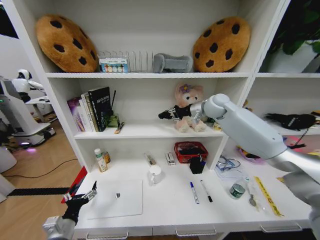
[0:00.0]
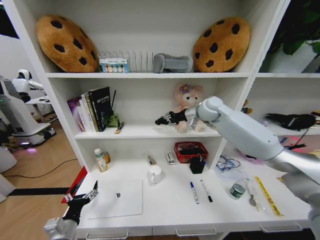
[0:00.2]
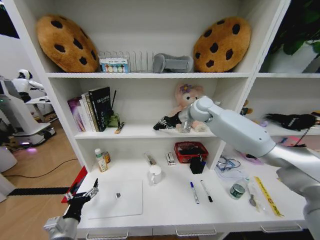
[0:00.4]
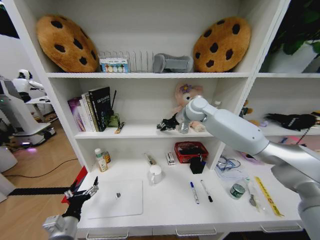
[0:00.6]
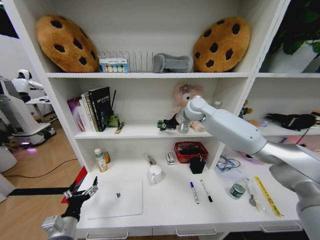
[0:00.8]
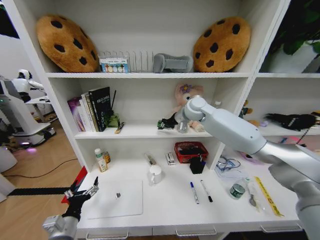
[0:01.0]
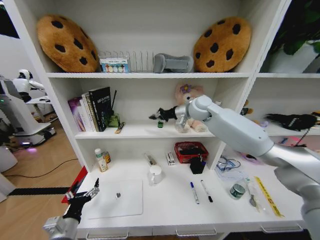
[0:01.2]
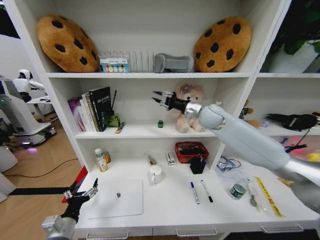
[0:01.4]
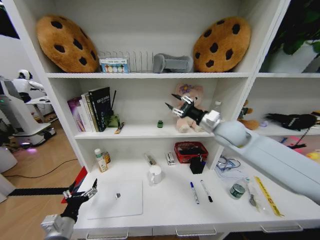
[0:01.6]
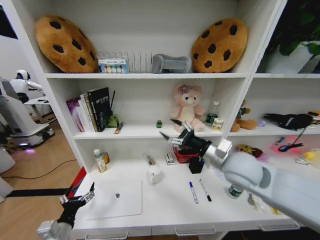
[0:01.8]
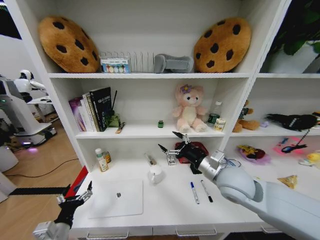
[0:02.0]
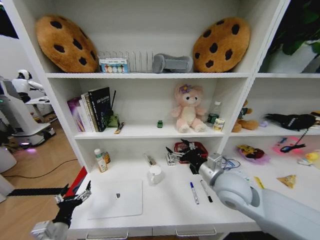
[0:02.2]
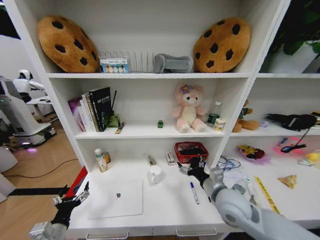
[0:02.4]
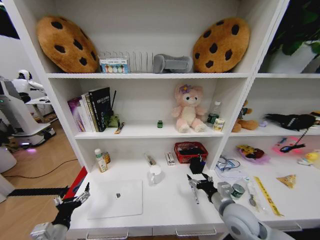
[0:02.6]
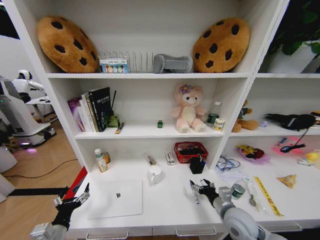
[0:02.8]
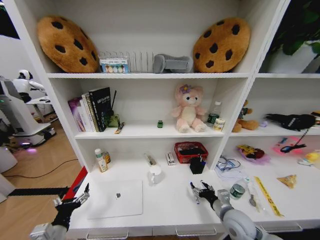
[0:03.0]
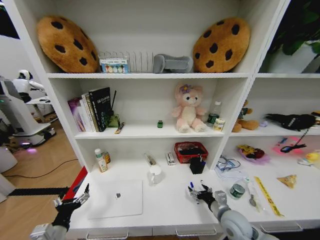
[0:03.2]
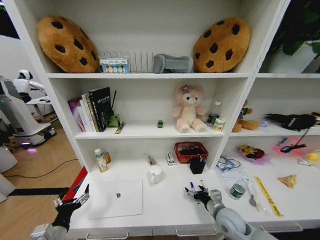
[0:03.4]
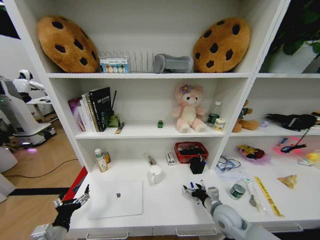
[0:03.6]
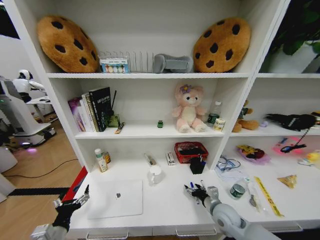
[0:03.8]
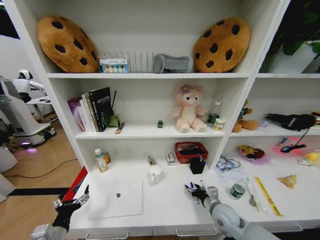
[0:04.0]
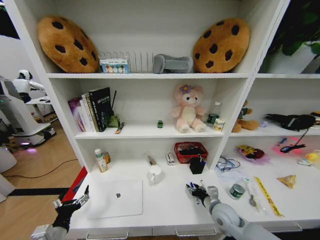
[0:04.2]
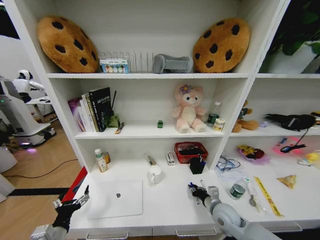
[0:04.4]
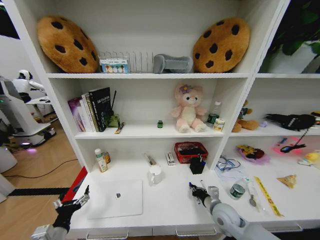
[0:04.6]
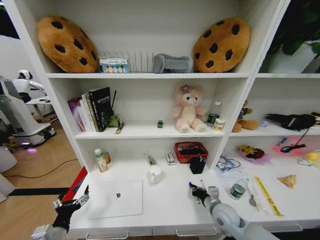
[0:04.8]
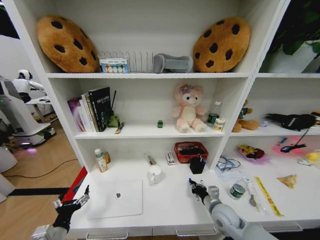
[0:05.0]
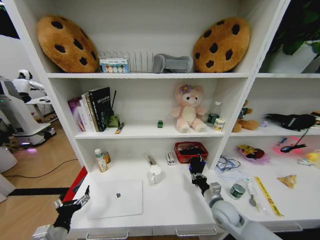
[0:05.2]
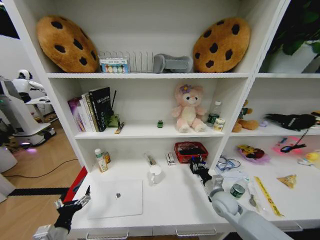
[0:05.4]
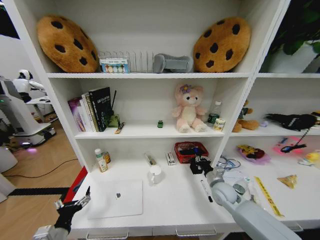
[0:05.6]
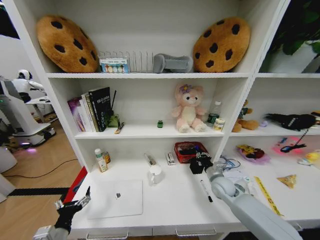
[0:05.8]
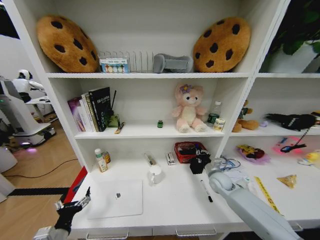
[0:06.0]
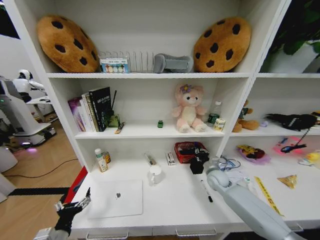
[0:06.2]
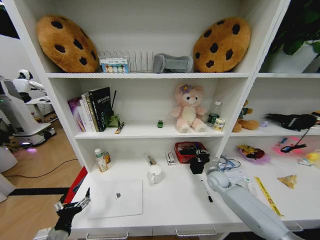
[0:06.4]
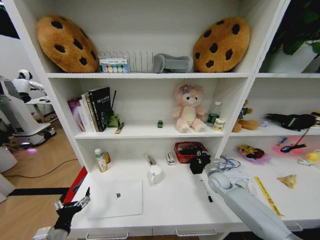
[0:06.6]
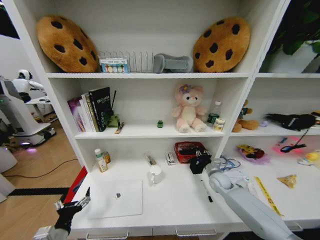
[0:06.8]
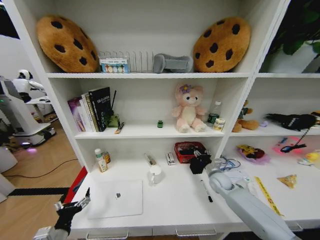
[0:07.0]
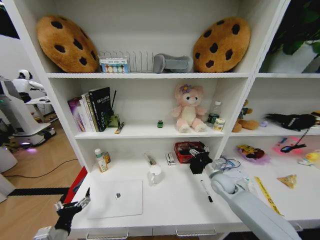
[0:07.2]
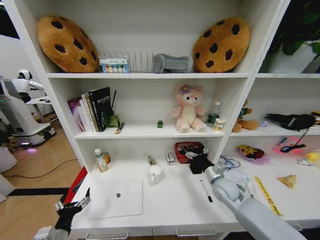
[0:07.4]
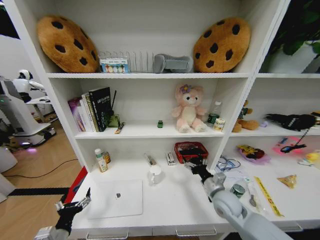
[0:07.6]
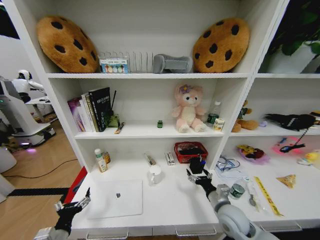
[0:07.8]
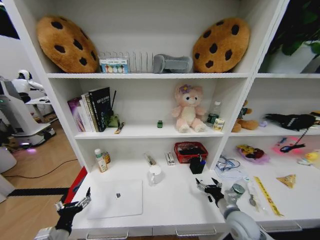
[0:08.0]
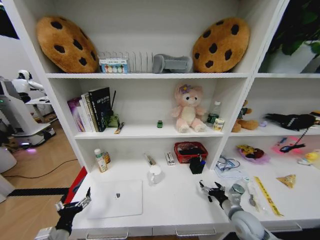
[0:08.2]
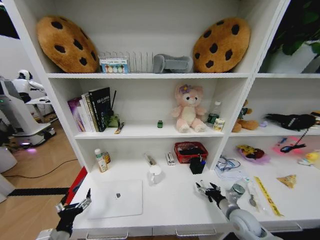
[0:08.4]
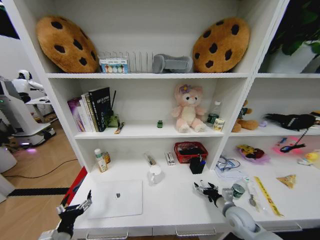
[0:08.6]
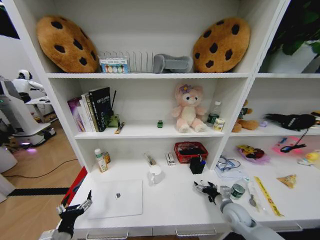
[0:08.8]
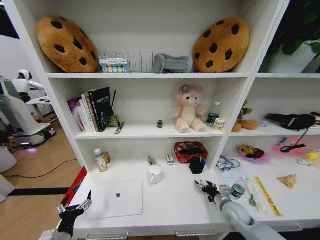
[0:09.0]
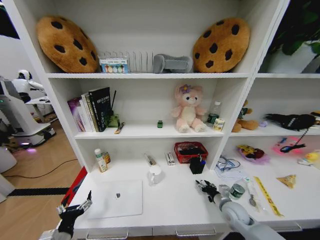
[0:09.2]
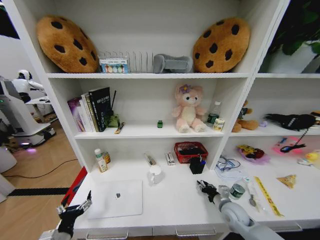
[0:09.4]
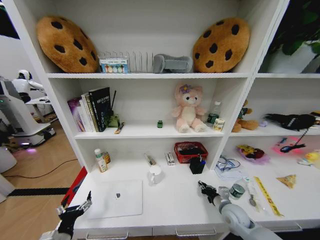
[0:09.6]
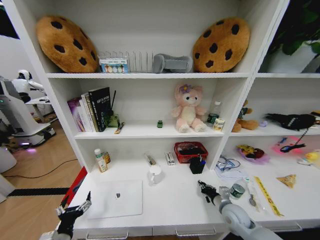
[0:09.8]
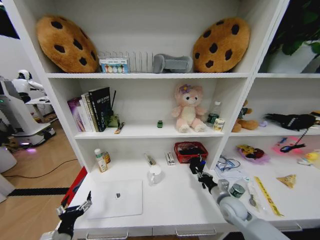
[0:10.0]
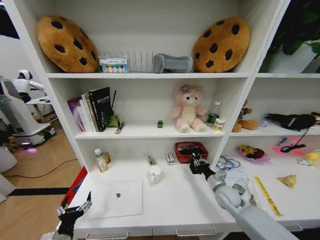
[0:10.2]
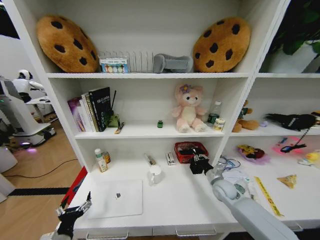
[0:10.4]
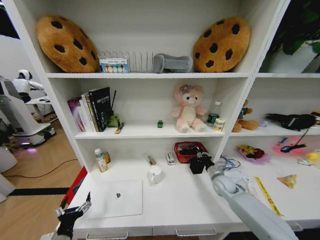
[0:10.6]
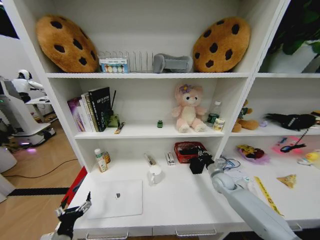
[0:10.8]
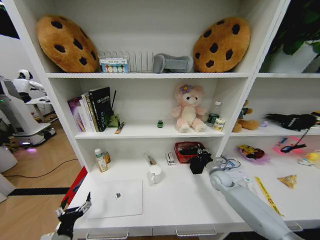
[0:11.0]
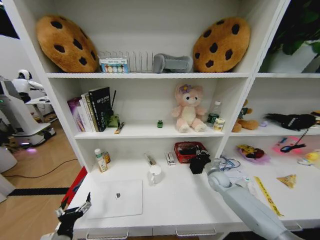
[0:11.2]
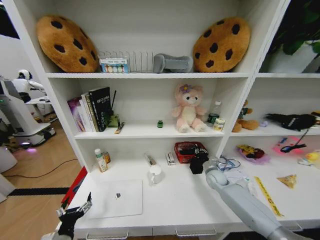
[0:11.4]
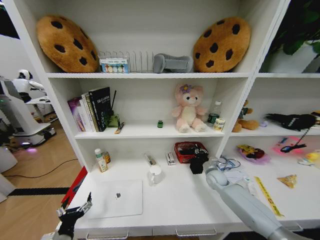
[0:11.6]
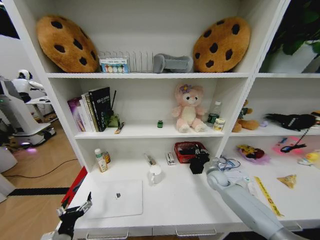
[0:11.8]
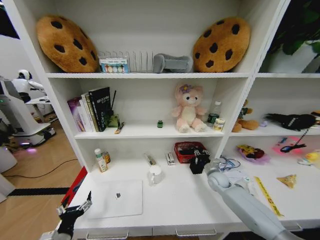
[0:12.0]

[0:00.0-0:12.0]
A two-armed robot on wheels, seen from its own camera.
Task of the whole recording: Organize the objects on the table.
0:00.0 to 0:01.6: The right gripper heads backward and downward, covering roughly 15 cm.
0:01.6 to 0:03.0: The right gripper travels downward and backward by about 35 cm.
0:03.0 to 0:04.4: The right gripper changes place by some 5 cm, and closes.
0:04.4 to 0:06.0: The right gripper travels forward by approximately 15 cm.
0:06.0 to 0:07.6: The right gripper ends up roughly 5 cm from where it was, and opens its fingers.
0:07.6 to 0:09.0: The right gripper shifts about 10 cm downward and backward.
0:09.0 to 0:10.4: The right gripper is displaced forward by approximately 10 cm, and closes.
0:10.4 to 0:12.0: The right gripper is displaced forward by some 5 cm.

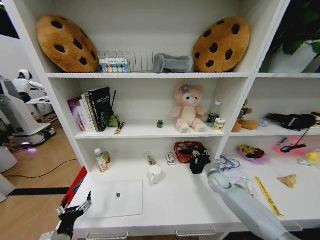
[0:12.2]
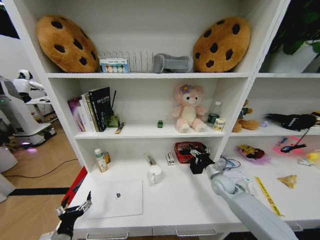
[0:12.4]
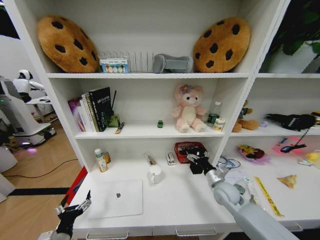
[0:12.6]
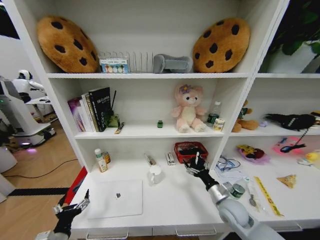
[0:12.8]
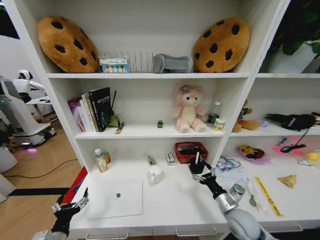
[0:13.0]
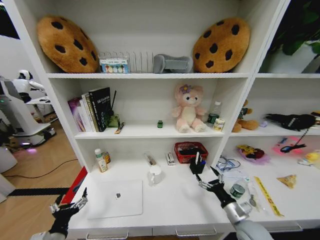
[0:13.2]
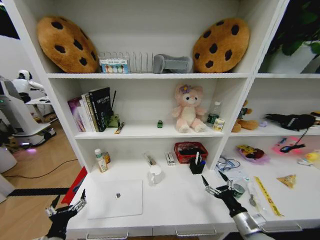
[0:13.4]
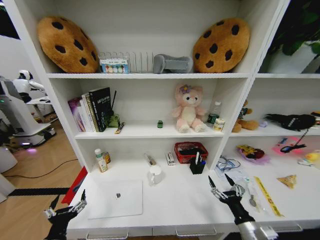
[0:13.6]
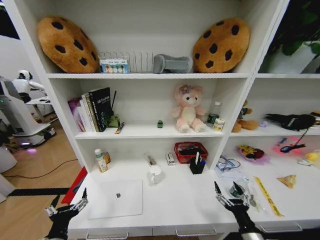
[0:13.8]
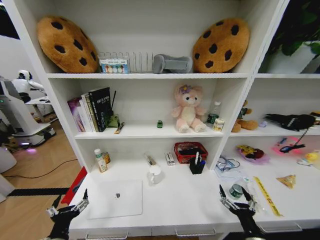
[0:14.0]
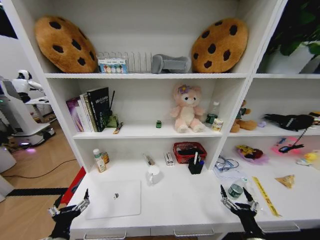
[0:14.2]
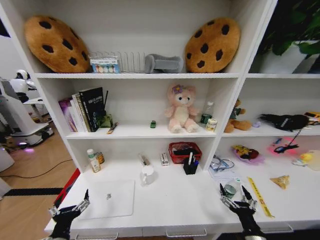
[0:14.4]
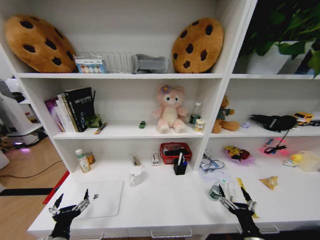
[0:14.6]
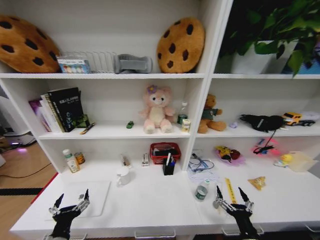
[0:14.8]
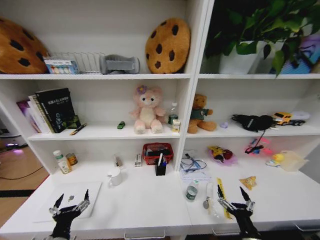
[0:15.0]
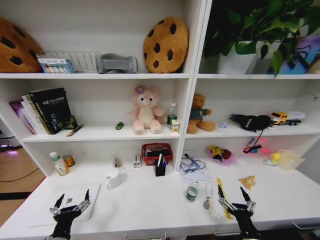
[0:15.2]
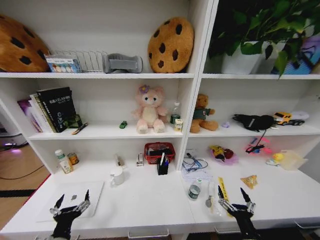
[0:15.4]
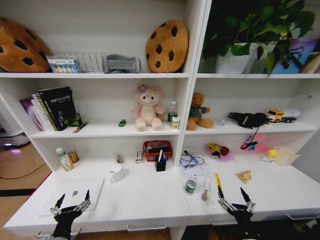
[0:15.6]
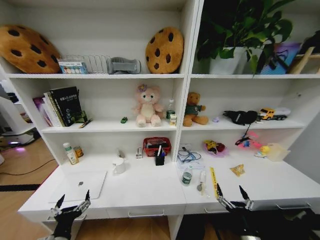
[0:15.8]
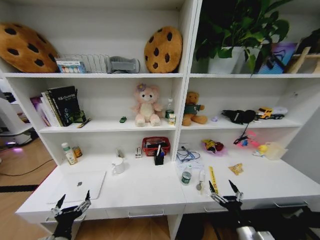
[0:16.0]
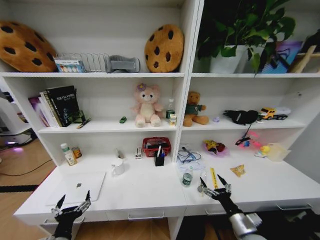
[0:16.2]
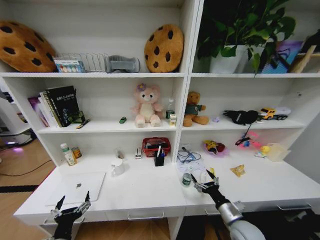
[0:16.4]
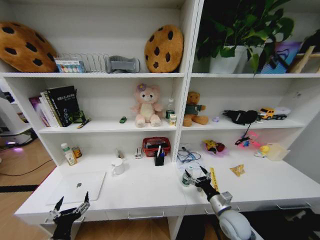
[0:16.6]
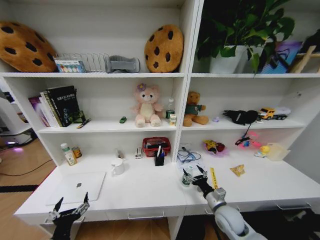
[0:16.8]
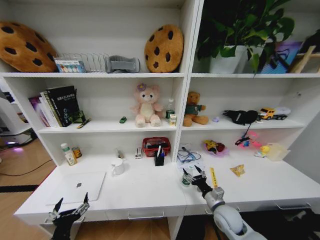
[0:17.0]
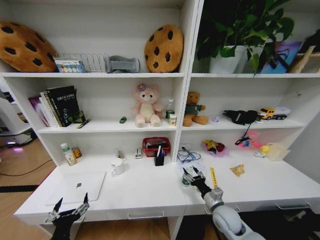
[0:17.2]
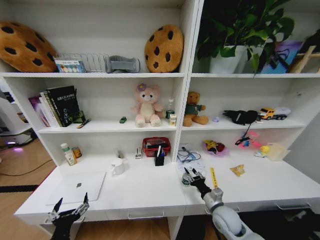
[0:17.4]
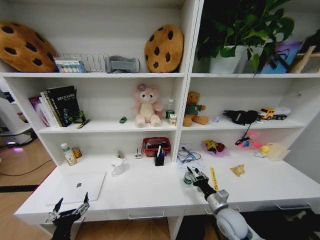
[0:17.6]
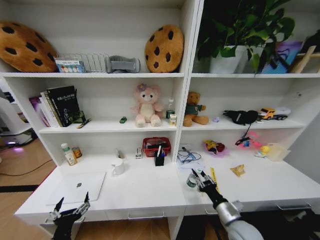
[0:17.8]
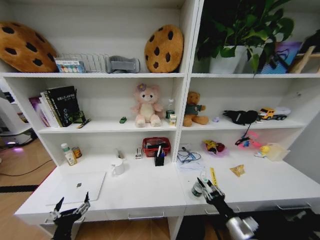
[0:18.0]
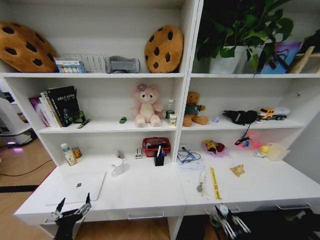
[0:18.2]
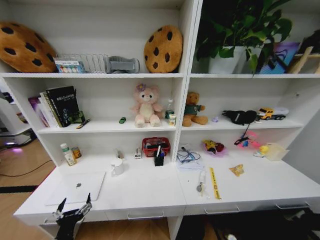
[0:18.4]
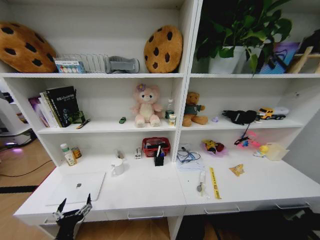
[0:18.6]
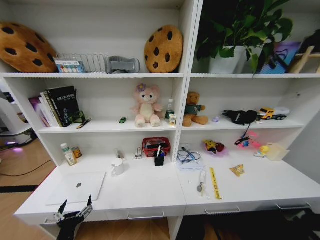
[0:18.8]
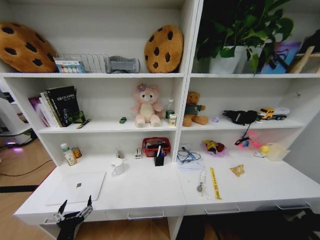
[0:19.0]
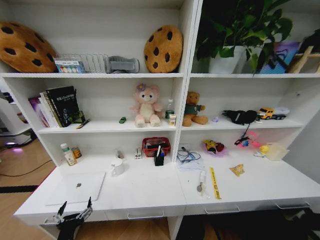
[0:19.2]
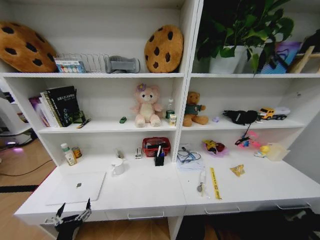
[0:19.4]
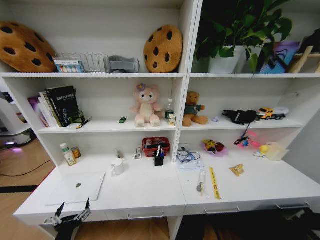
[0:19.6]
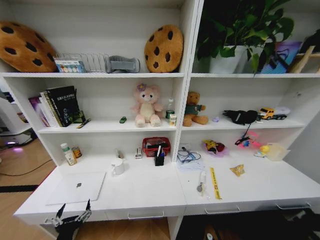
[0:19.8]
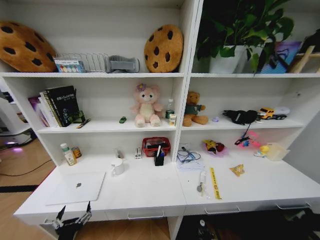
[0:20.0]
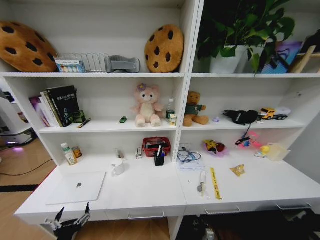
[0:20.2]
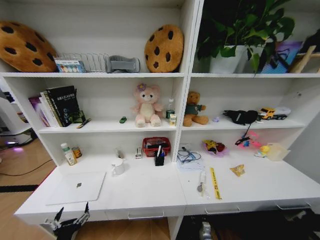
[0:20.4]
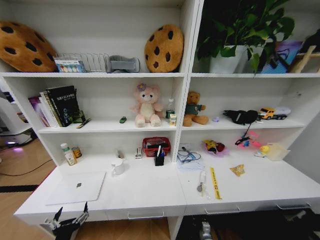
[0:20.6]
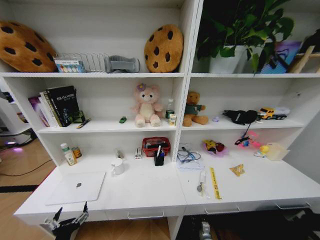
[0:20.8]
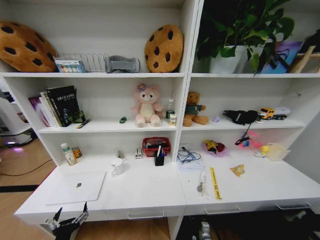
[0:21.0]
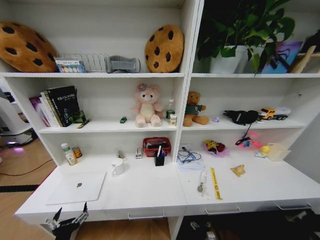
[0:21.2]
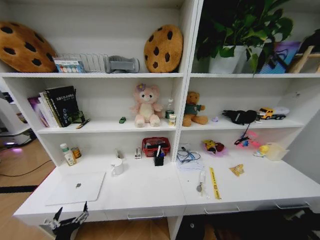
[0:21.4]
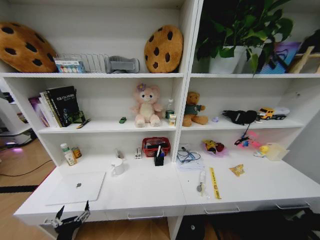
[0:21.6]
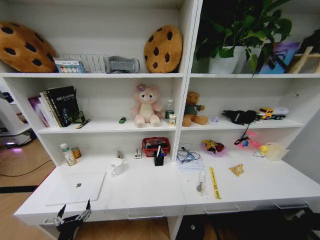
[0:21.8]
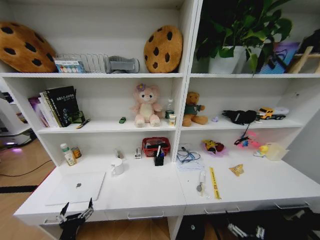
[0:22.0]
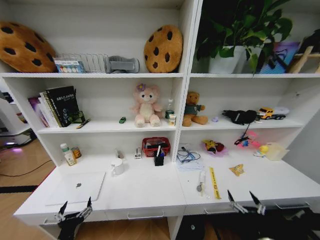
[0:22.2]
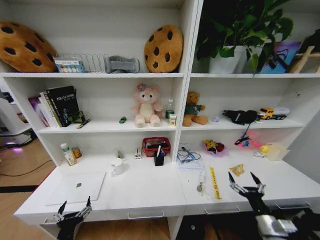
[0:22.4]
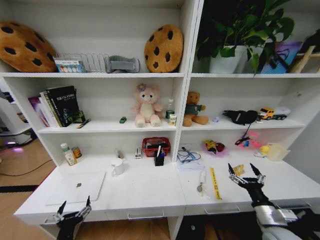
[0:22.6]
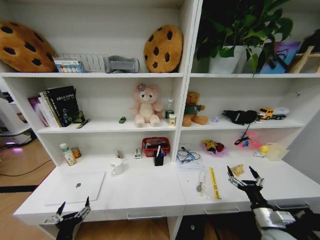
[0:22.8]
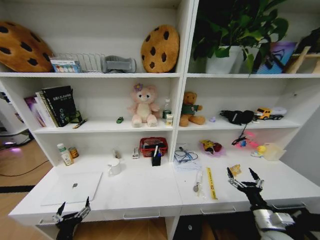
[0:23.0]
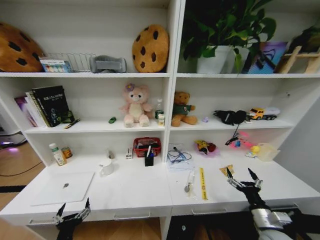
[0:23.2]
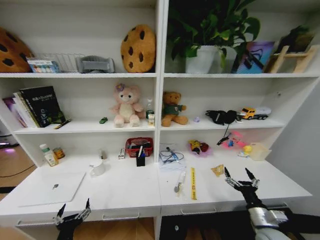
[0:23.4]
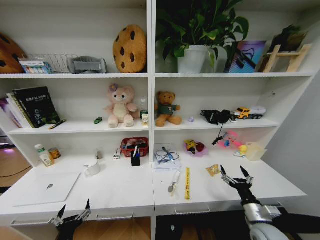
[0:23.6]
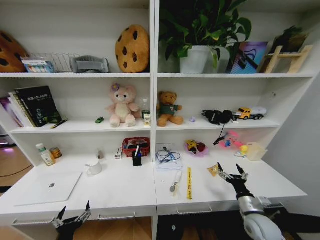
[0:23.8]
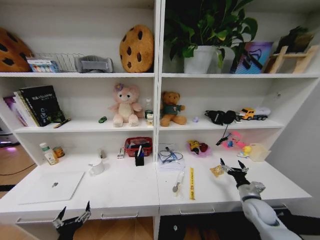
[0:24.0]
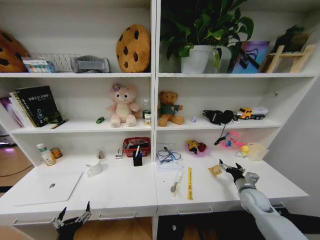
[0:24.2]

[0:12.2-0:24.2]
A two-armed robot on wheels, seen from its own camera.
Task of the whole recording: Organize the objects on the table.
0:12.2 to 0:13.8: The left gripper changes place by approximately 5 cm; the right gripper moves backward, about 30 cm.
0:15.2 to 0:16.6: The right gripper moves forward, about 15 cm.
0:16.6 to 0:18.2: The right gripper shifts approximately 20 cm backward, and closes its fingers.
0:18.2 to 0:19.8: The right gripper is displaced downward by some 30 cm.
0:19.8 to 0:21.2: The right gripper moves forward, approximately 10 cm, and opens up.
0:21.2 to 0:22.6: The right gripper is displaced upward by some 35 cm.
0:22.6 to 0:24.2: The right gripper travels forward by approximately 15 cm.
